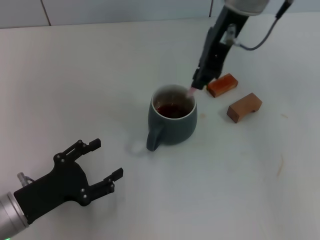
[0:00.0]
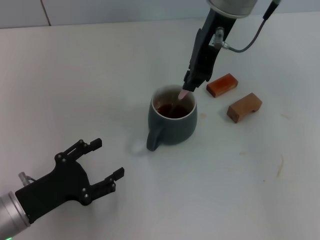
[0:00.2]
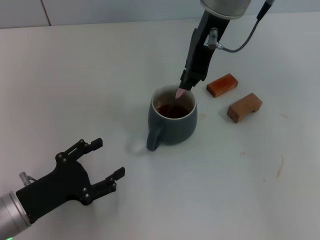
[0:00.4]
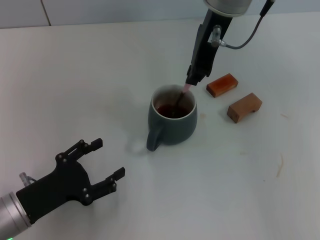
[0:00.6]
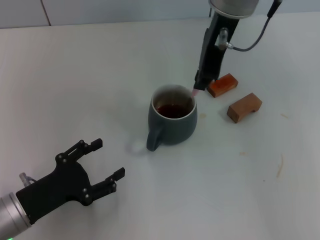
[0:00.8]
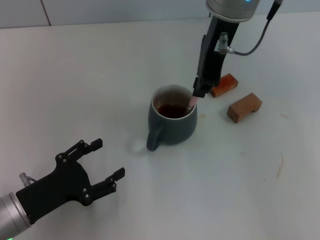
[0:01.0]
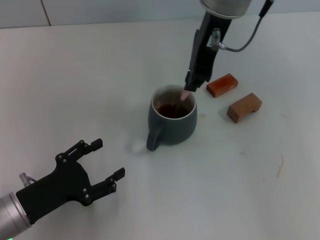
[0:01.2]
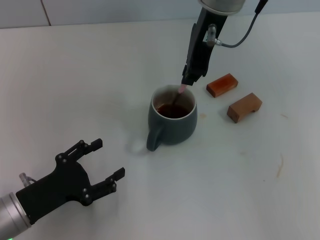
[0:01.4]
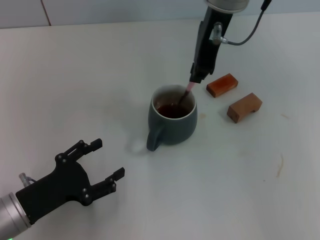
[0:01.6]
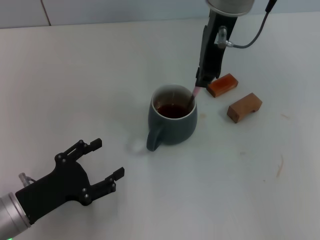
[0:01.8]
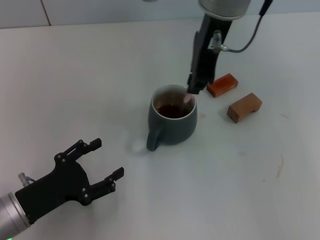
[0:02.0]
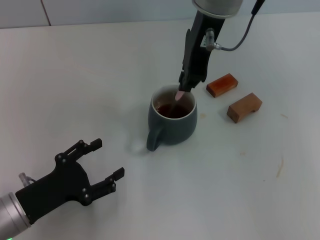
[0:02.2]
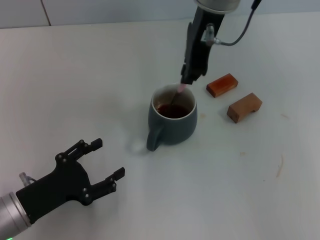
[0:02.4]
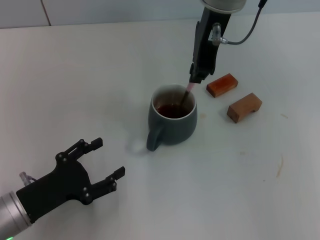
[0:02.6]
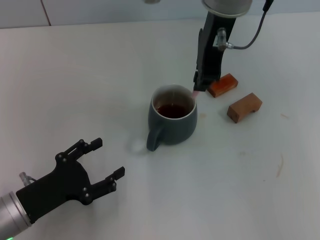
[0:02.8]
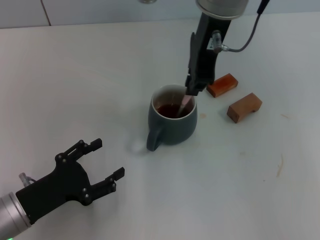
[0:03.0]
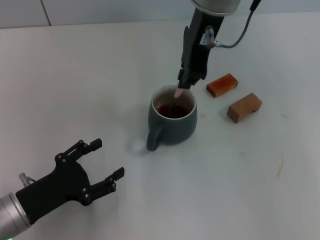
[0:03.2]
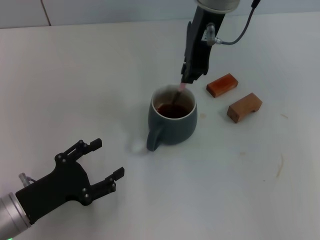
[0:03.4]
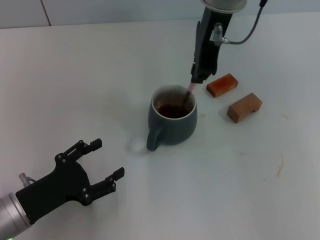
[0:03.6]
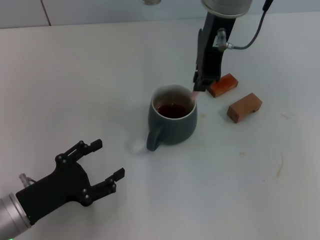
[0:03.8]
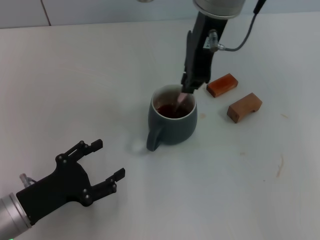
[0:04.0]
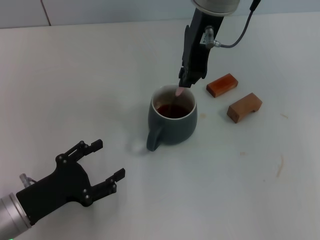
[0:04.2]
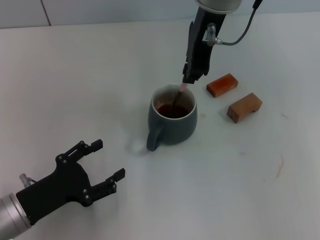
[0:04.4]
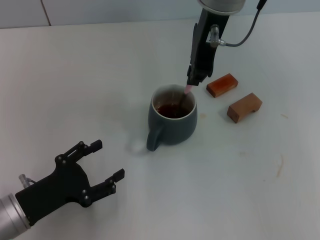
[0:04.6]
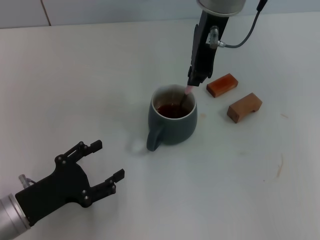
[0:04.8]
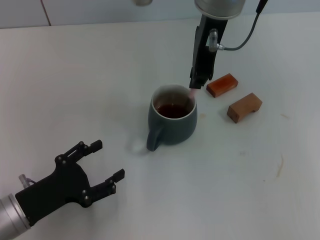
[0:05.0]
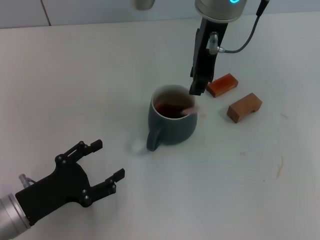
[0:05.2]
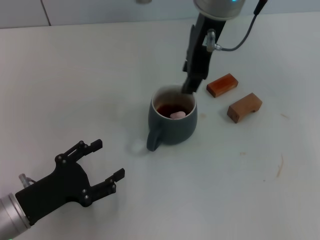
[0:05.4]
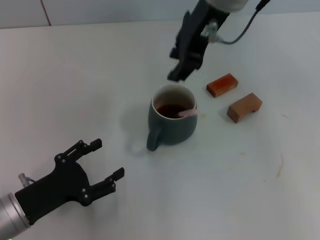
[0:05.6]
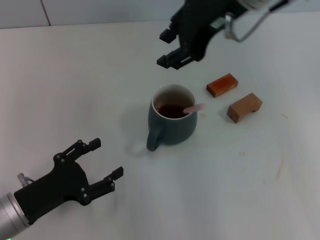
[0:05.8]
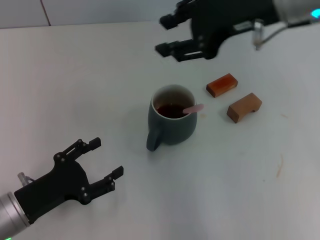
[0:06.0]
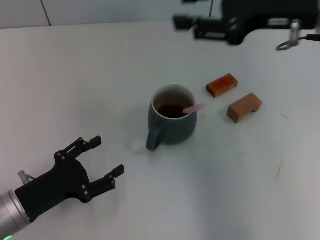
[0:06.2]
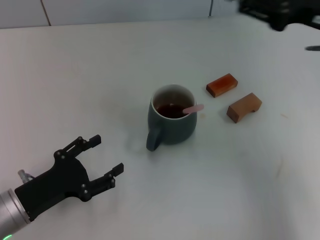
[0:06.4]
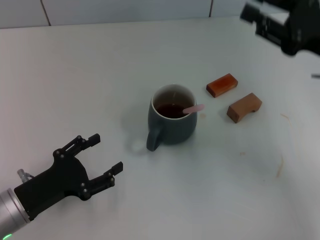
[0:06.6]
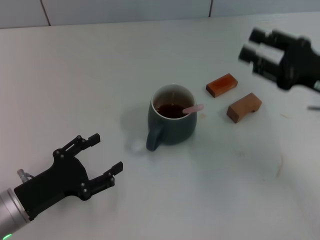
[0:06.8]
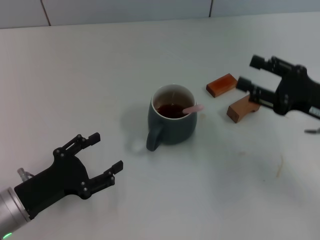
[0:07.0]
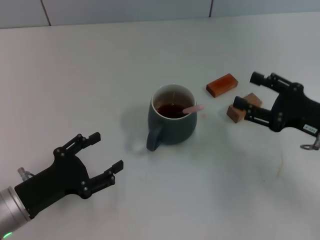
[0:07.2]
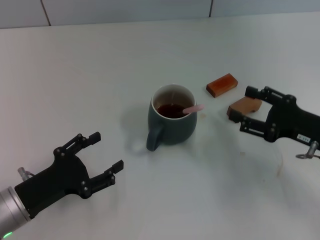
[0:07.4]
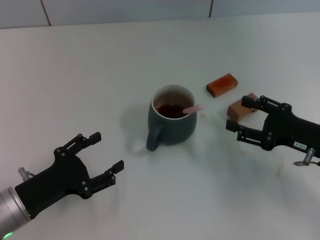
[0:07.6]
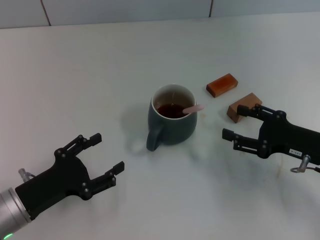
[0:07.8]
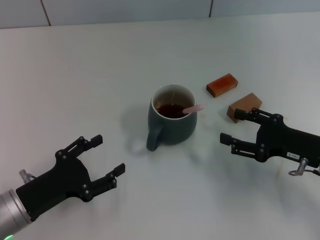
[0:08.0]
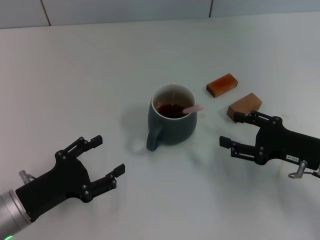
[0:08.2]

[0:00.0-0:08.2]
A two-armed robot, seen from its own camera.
Task of the whole recording: Move the grey cup to the center, lift the pink spoon, stir it three times in the cup, and put the spoon into the cup.
Step, 0:00.0 to 0:05.4: Stir the coffee in the cup with the right gripper.
0:00.0 to 0:05.0: There are only small adjustments of the grippers.
0:05.0 to 0:06.6: The right gripper goes about 25 cm to the right and downward, and opens.
0:06.6 to 0:08.2: The right gripper heads downward and backward, covering some 15 cm, and opens up.
